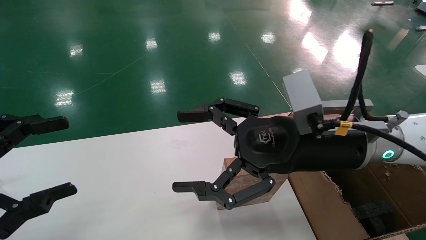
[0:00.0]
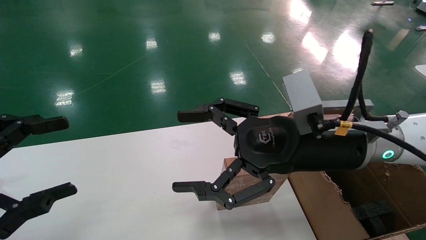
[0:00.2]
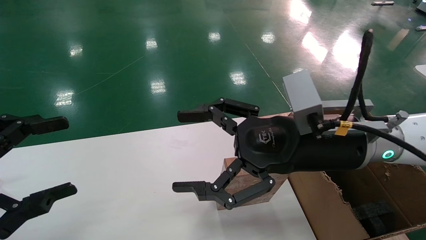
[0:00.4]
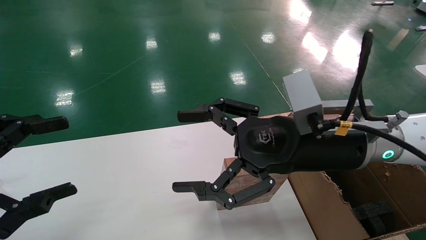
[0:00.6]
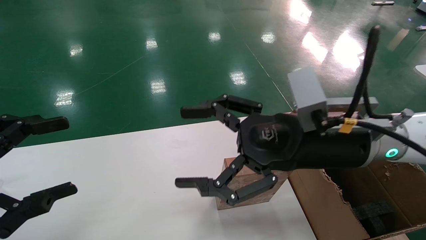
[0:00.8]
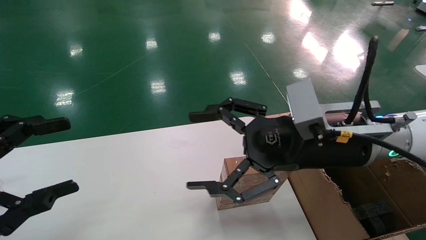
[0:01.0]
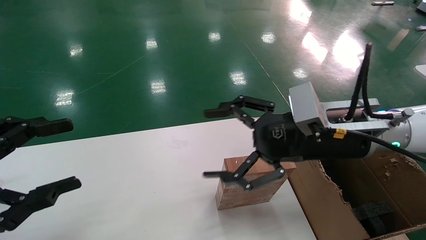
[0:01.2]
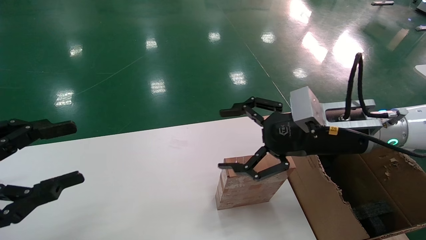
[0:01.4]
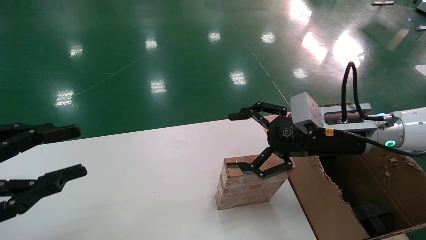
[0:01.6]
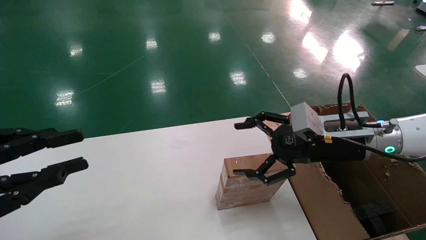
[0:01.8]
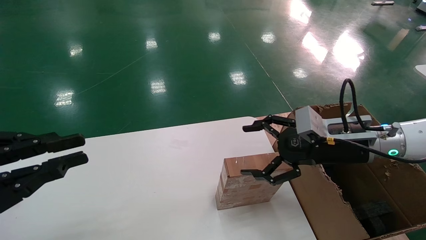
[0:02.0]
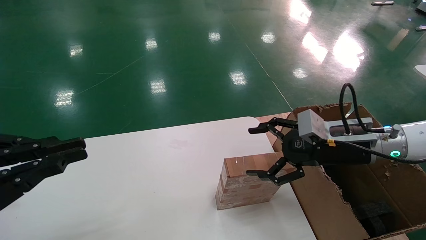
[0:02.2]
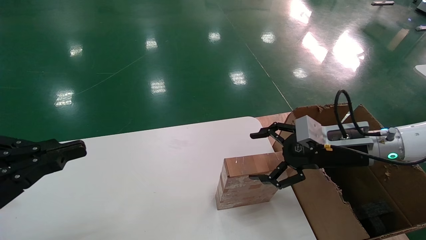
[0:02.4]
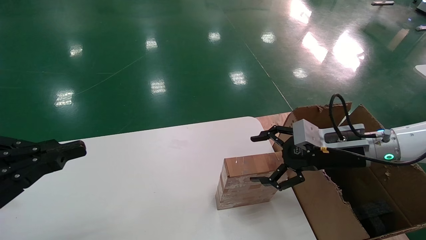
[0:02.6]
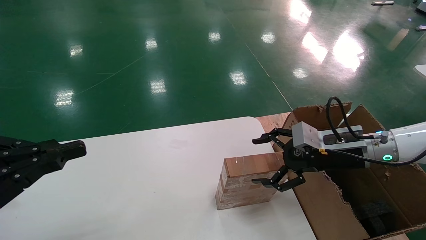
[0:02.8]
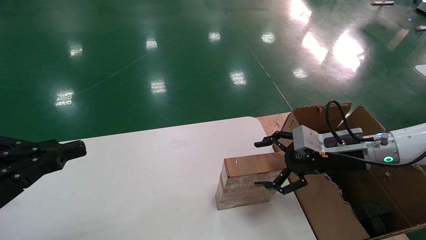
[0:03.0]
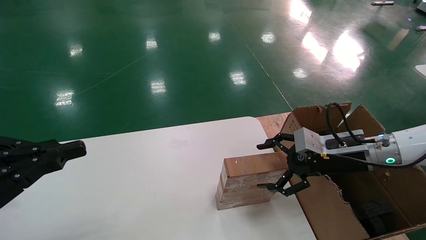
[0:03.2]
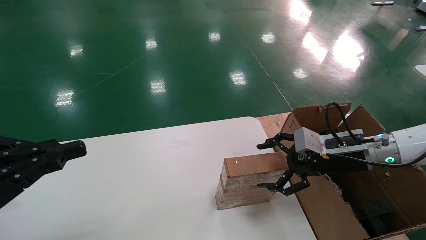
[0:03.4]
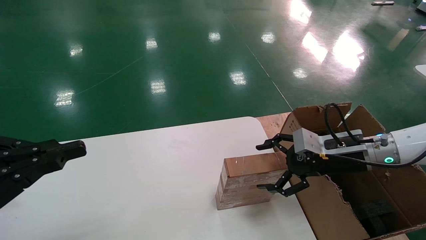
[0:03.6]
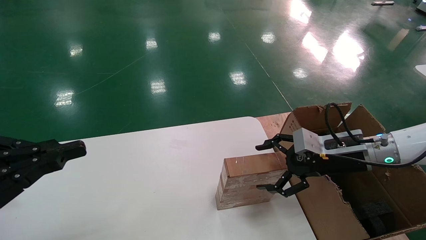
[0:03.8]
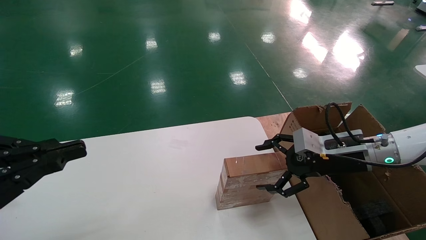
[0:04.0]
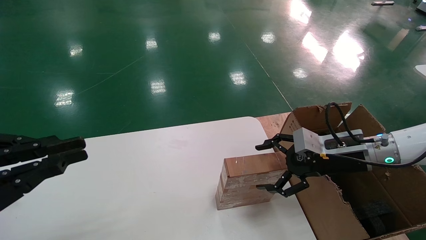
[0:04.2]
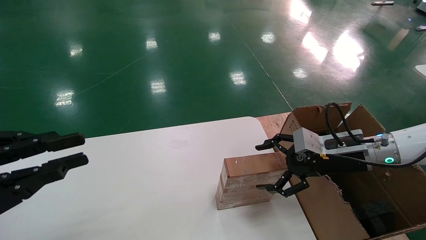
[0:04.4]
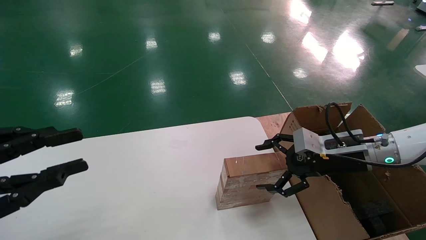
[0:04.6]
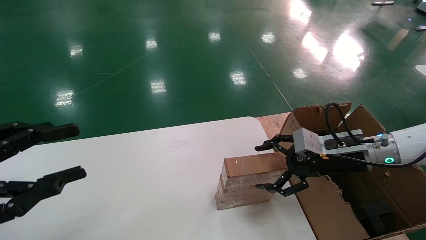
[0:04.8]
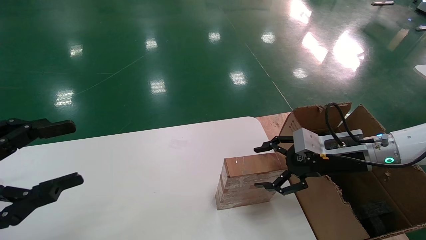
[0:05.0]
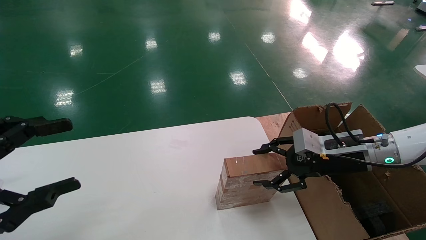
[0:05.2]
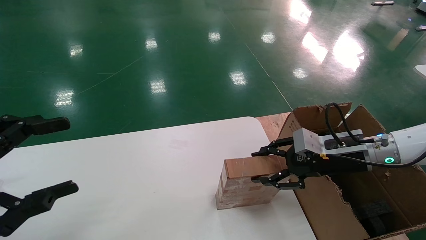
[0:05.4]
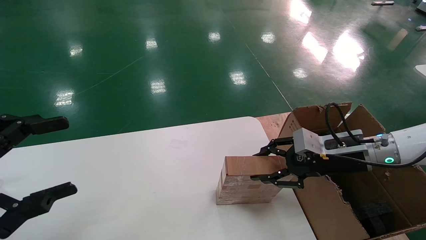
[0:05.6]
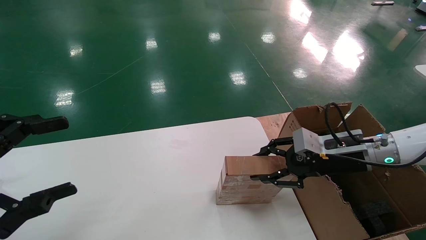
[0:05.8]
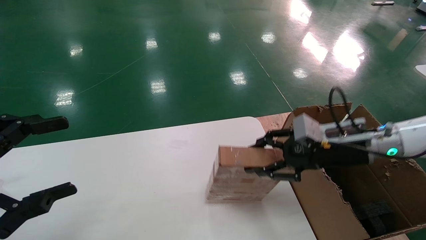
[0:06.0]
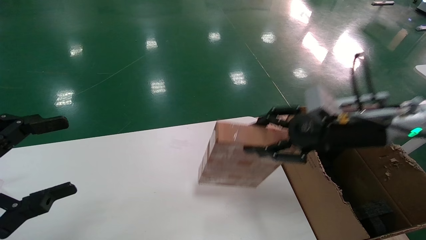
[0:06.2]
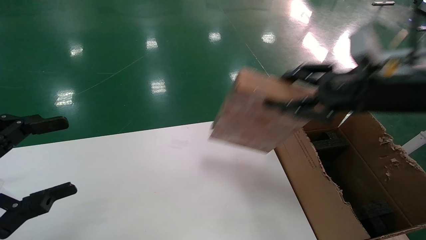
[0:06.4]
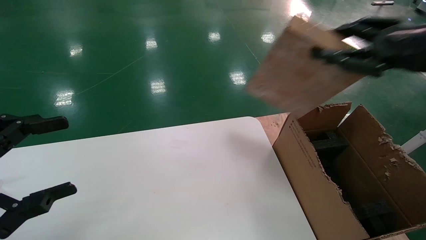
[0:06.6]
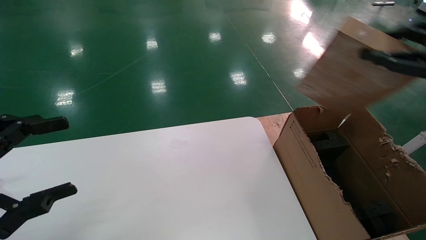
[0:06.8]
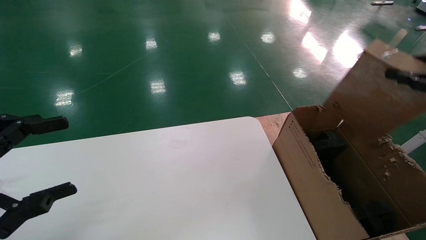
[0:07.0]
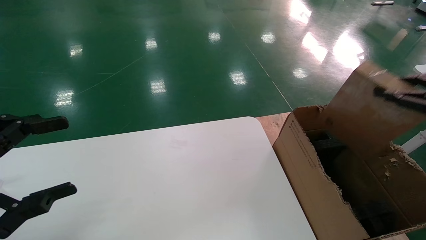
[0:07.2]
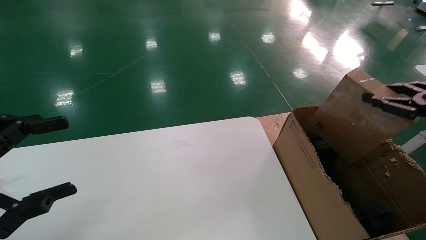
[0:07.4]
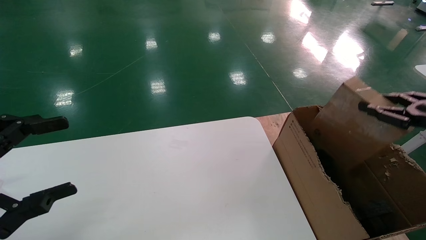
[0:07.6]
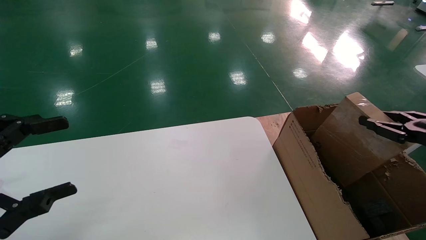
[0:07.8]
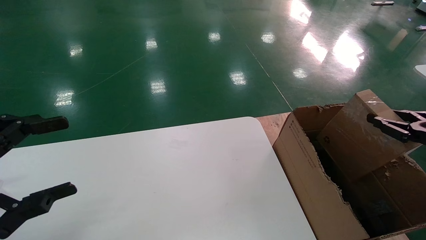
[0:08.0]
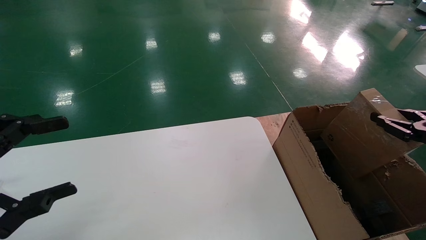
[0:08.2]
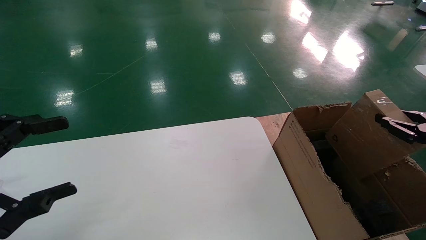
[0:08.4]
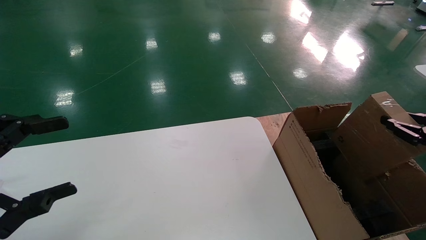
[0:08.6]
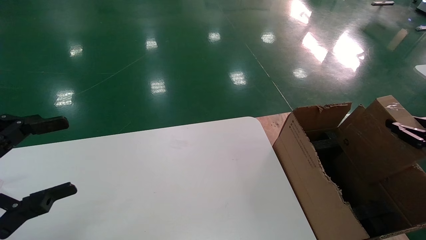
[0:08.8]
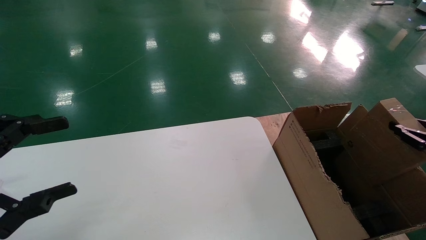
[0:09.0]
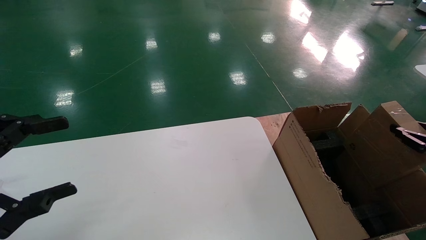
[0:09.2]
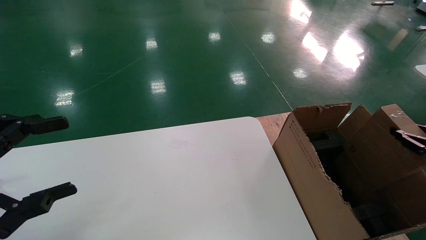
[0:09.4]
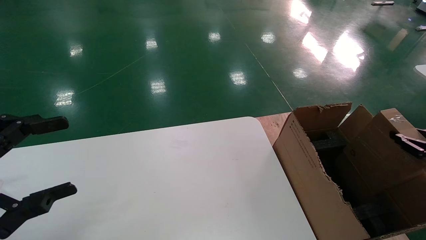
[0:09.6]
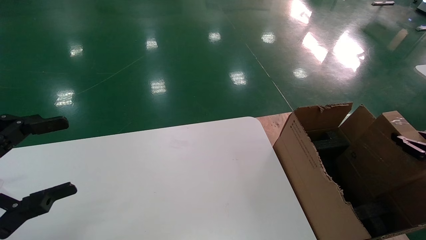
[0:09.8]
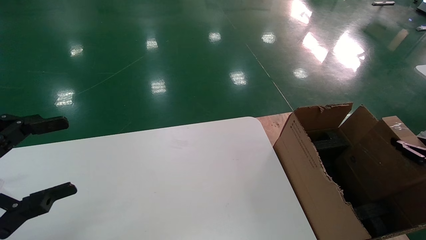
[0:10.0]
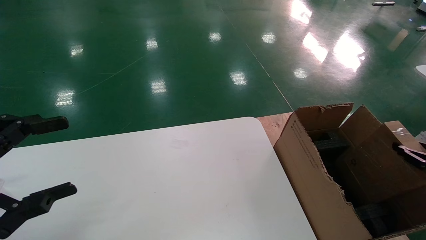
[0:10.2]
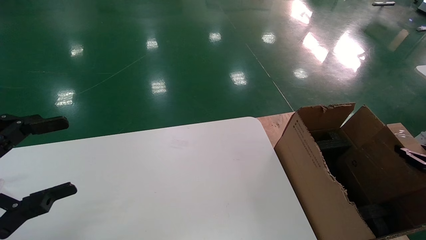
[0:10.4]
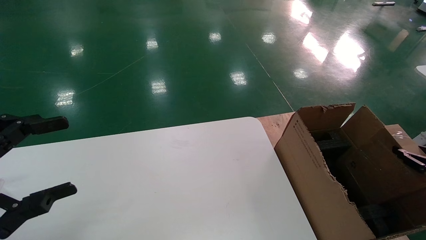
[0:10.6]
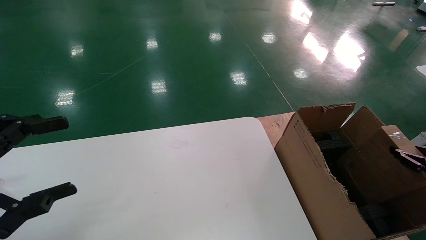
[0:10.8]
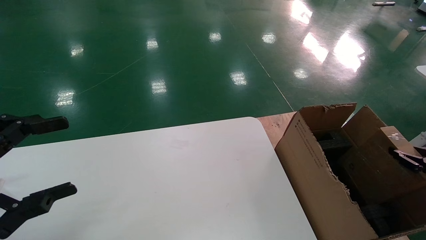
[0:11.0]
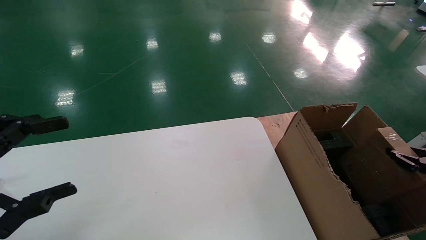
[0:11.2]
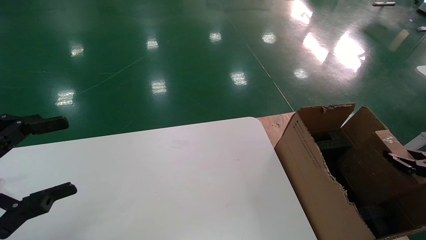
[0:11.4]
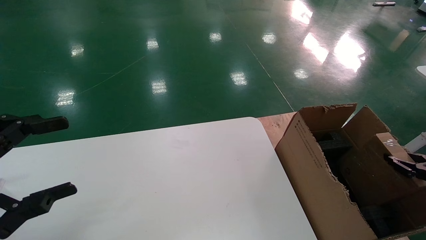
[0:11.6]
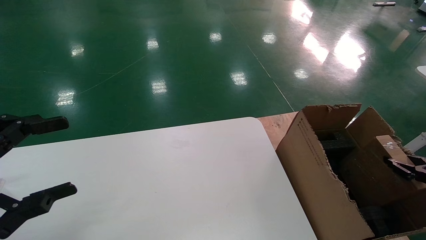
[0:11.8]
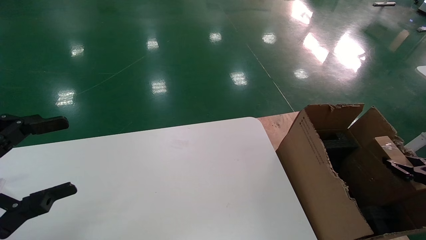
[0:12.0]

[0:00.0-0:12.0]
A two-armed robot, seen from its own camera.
Task of the whole recording: put the box on the table into the big box.
Step, 0:01.4 to 0:05.8: Pick up the mouse and the power cord paper box.
0:00.0 to 0:01.6: The left gripper closes its fingers, while the right gripper is displaced to the right and forward by approximately 10 cm.
0:01.6 to 0:03.0: The right gripper heads downward and to the right, covering about 10 cm. Meanwhile the left gripper closes up.
0:03.0 to 0:04.4: Both grippers stay put.
0:04.4 to 0:06.0: The left gripper opens its fingers. Meanwhile the right gripper closes.
0:06.0 to 0:07.6: The right gripper shifts roughly 20 cm to the right and backward.
0:07.6 to 0:09.0: The right gripper goes some 5 cm downward.
0:09.0 to 0:10.4: The right gripper is displaced downward by some 5 cm.
0:10.4 to 0:12.0: The right gripper changes place by some 5 cm.

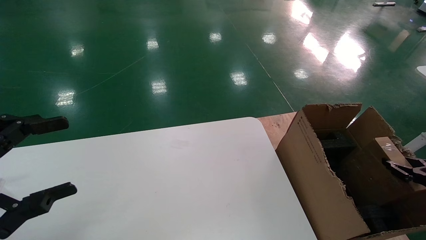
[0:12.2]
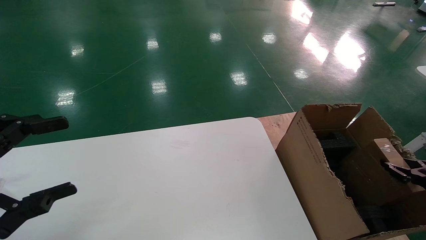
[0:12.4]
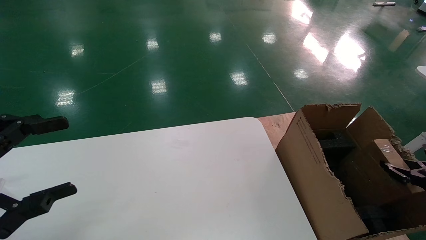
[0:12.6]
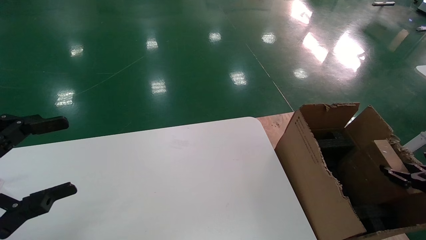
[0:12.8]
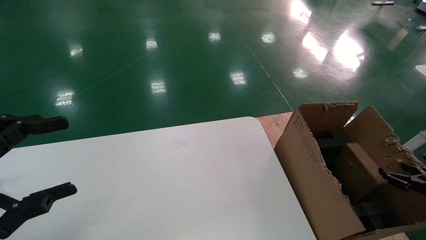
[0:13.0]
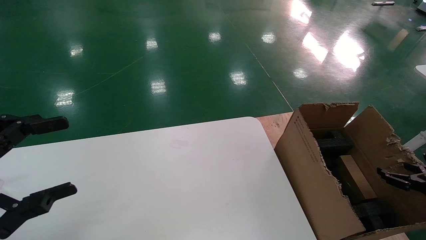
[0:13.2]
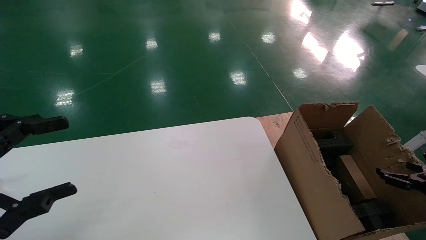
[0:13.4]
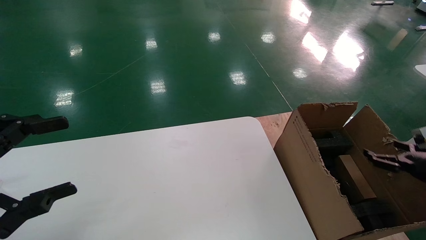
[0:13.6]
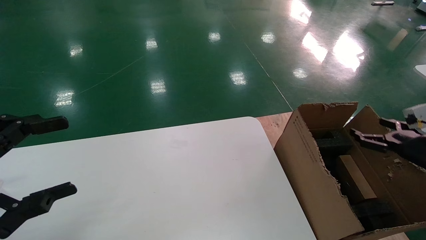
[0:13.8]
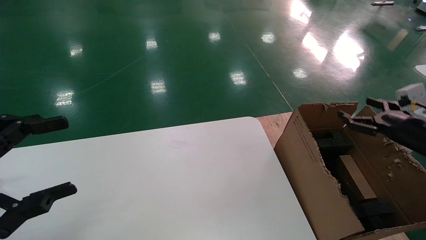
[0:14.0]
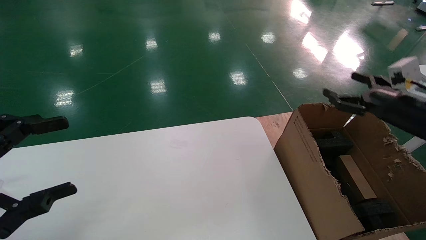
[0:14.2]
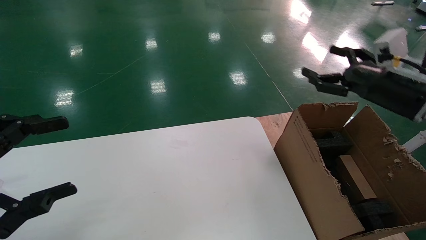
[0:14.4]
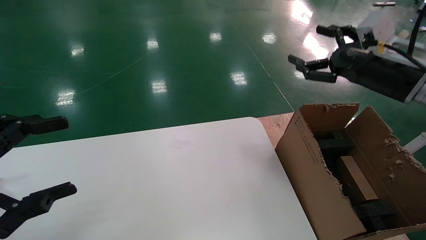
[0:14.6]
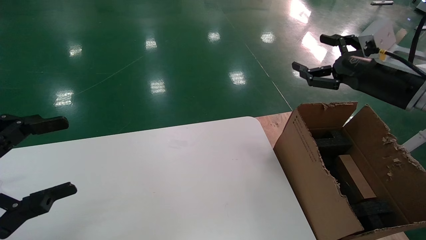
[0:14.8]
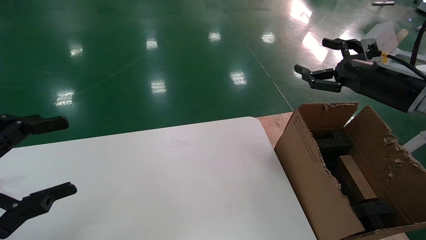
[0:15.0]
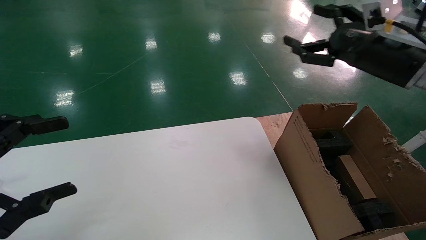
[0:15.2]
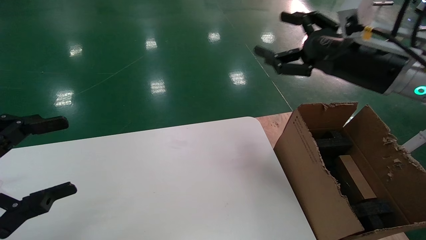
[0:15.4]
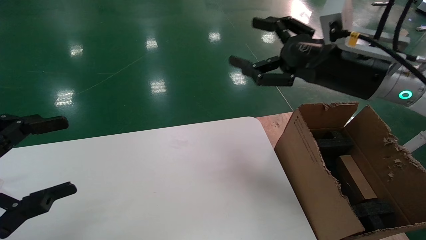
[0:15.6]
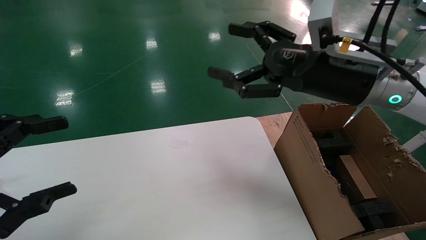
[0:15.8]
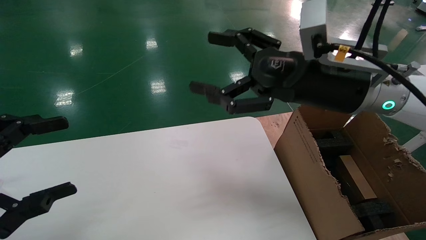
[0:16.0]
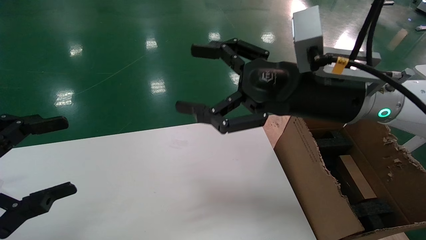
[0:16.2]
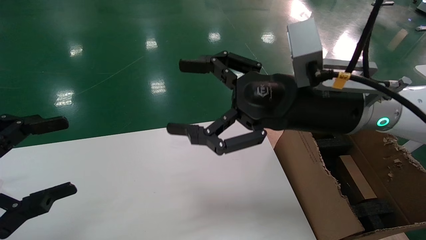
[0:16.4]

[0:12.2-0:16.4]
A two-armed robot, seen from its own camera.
Task of the whole recording: put the box on the table into the big box.
0:12.2 to 0:13.6: The right gripper changes place by some 5 cm, and opens.
0:13.6 to 0:15.0: The right gripper heads upward and to the left, covering about 25 cm.
0:15.0 to 0:16.4: The right gripper goes approximately 20 cm to the left.
